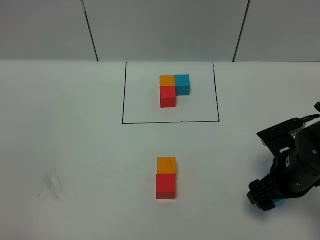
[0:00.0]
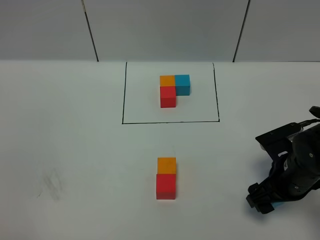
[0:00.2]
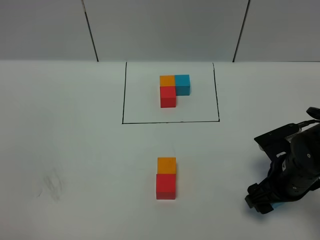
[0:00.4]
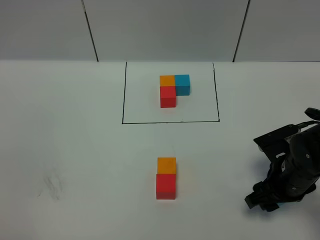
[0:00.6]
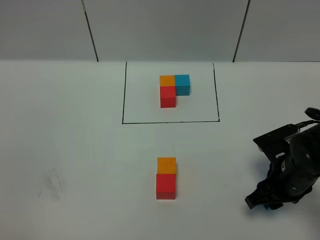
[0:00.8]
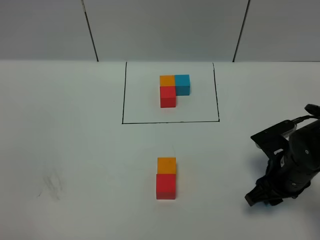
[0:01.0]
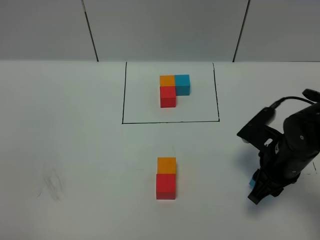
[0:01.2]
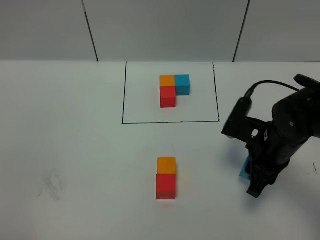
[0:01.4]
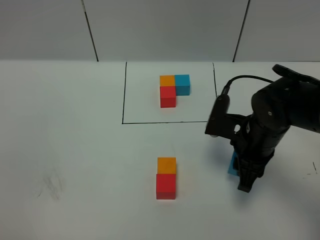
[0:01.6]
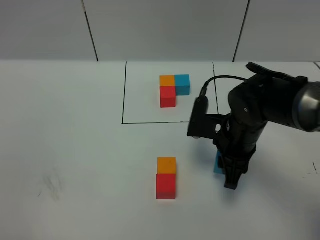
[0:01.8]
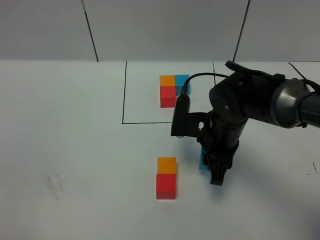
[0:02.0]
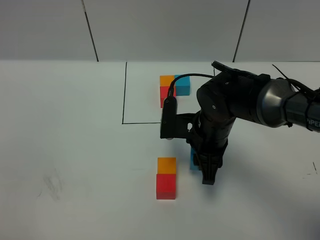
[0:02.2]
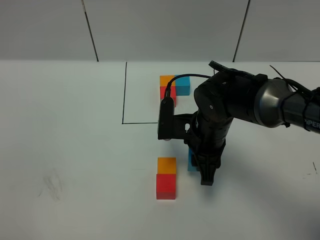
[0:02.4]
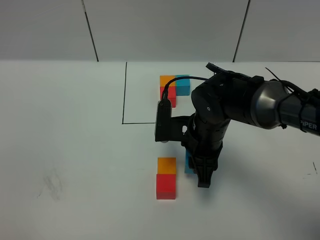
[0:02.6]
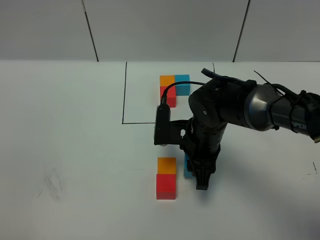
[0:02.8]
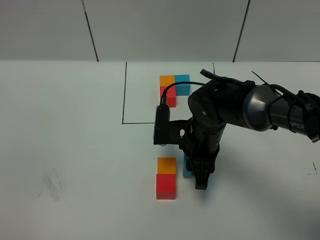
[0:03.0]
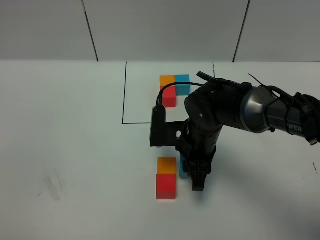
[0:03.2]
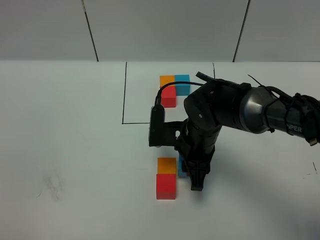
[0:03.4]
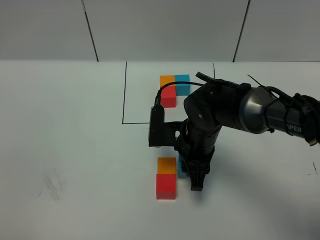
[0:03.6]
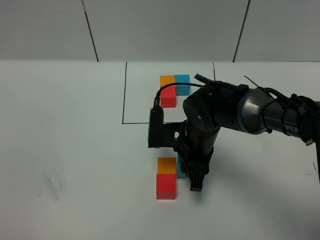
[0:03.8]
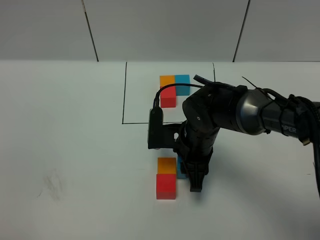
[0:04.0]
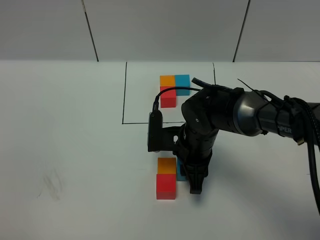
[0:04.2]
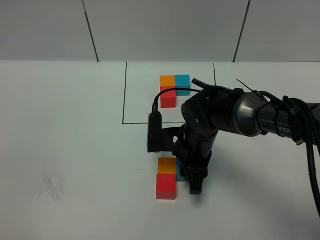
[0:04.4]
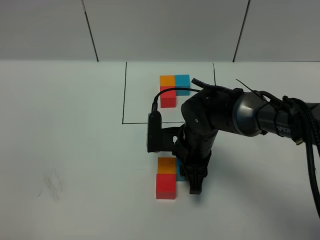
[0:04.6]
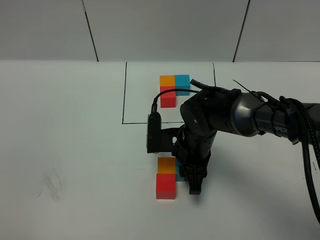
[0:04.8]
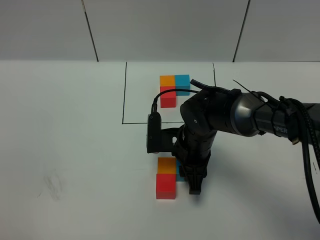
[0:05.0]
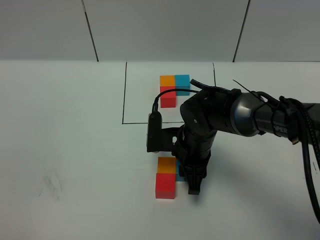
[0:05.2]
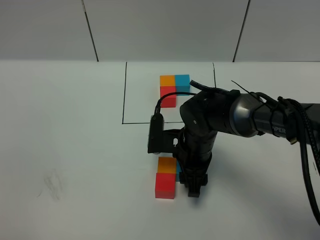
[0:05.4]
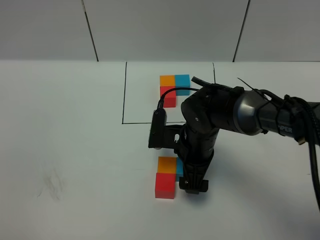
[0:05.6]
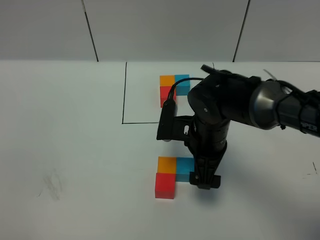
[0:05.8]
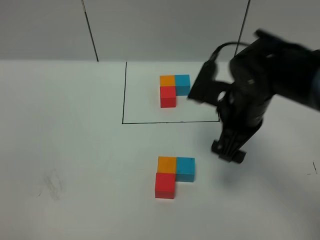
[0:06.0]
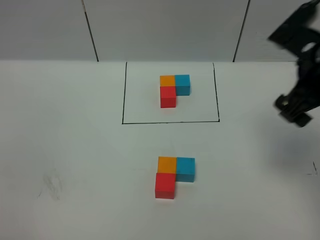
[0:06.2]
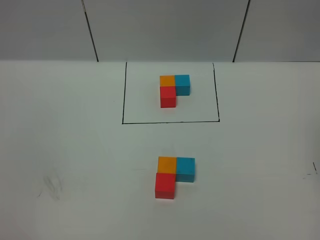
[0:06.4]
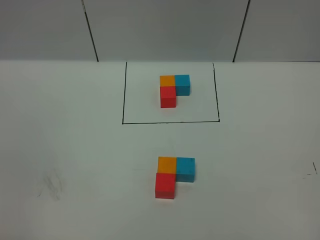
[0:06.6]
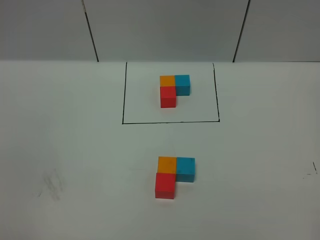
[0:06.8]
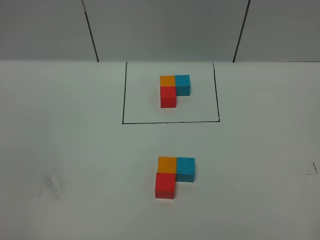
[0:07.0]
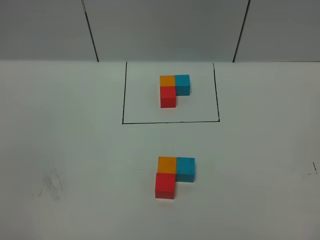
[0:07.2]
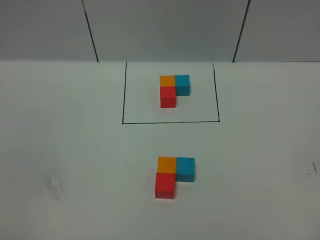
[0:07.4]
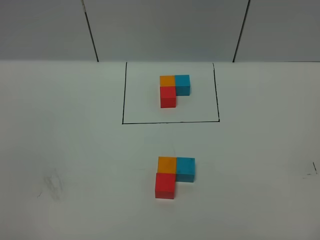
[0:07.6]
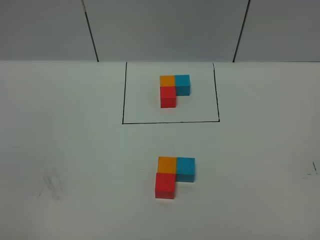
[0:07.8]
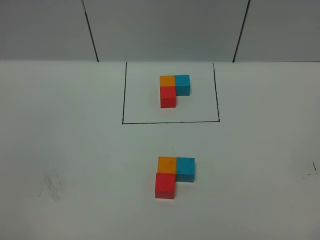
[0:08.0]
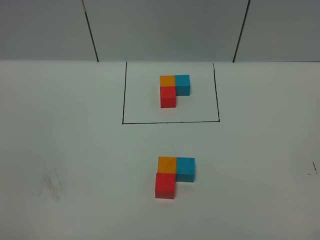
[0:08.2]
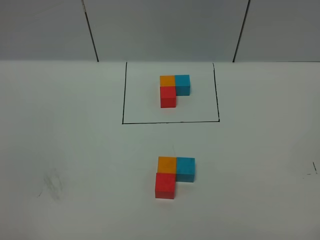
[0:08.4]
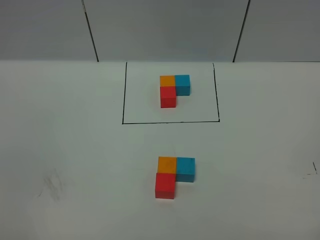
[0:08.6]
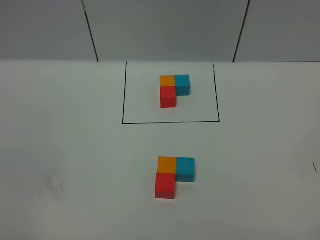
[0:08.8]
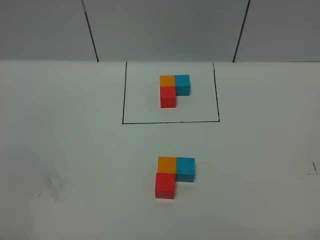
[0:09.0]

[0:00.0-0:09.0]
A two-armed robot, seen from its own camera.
Task of the whole recording: According to the building block template in front, assemble the scattered blocks together.
Step, 0.0 to 5.8 s: Put the blue cube on the right of the orange cube.
0.0 to 1.6 s: The right gripper is displaced to the left and forward by about 10 cm, and closes.
1.6 to 3.0 s: The right gripper is displaced to the left by approximately 10 cm.
3.0 to 4.4 s: The grippers stay close to where they were, moving slightly.
4.4 to 6.0 s: The right gripper shifts roughly 15 cm upward and to the right, and opens.
6.0 to 7.6 s: The right gripper shifts about 35 cm backward and to the right.

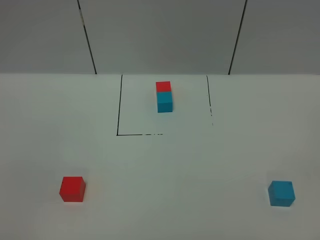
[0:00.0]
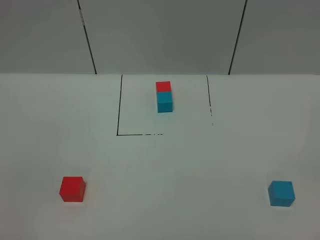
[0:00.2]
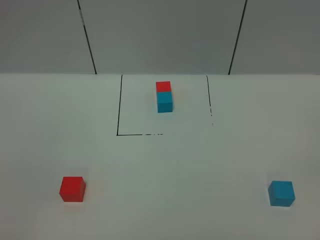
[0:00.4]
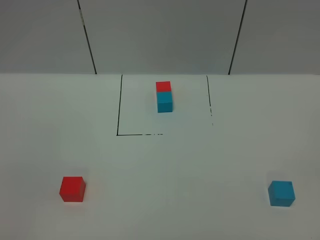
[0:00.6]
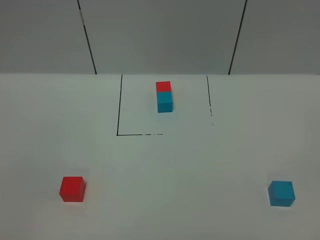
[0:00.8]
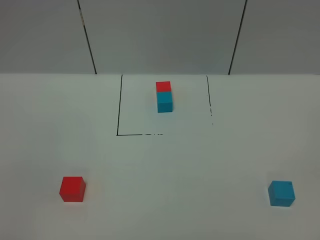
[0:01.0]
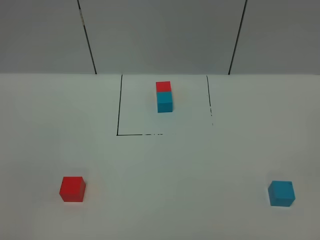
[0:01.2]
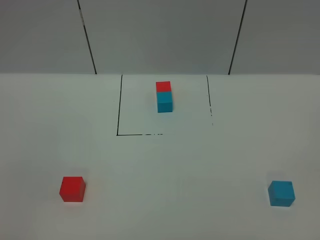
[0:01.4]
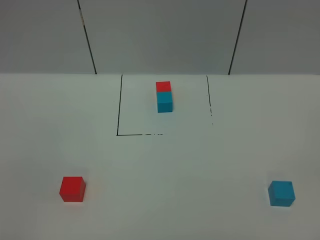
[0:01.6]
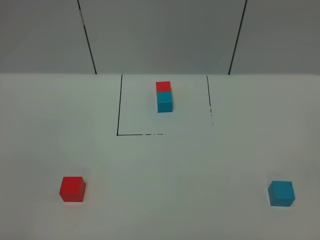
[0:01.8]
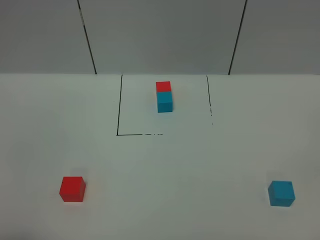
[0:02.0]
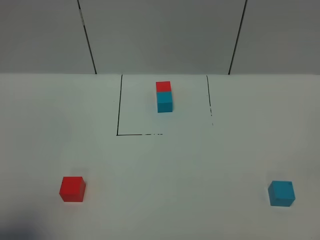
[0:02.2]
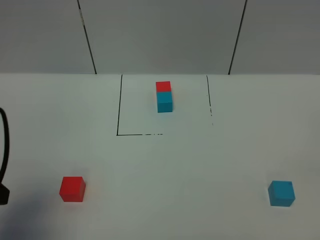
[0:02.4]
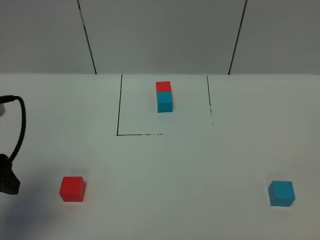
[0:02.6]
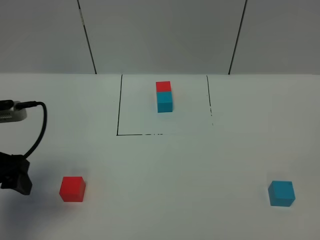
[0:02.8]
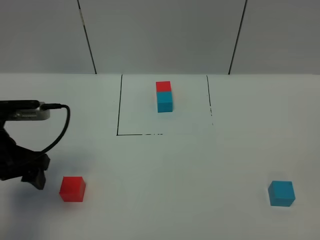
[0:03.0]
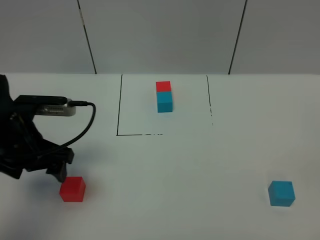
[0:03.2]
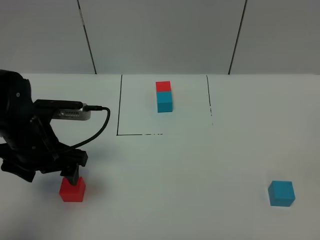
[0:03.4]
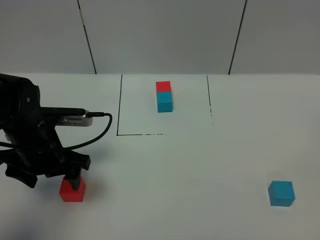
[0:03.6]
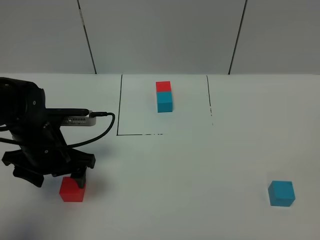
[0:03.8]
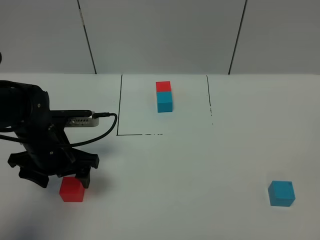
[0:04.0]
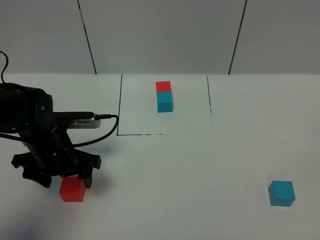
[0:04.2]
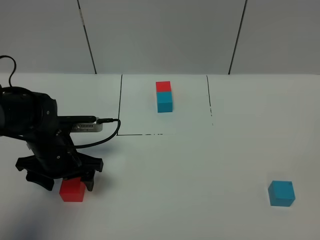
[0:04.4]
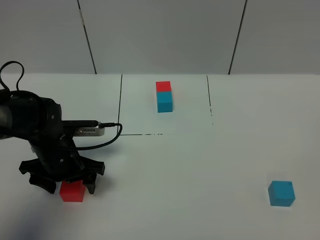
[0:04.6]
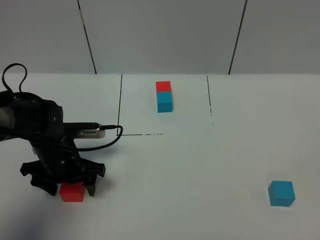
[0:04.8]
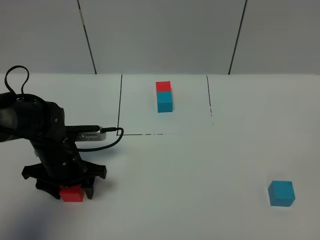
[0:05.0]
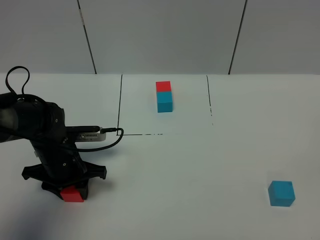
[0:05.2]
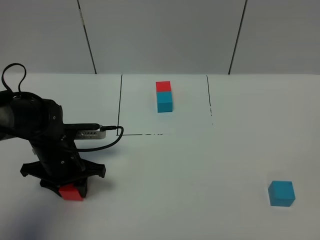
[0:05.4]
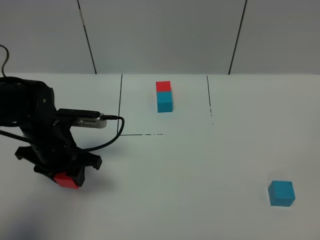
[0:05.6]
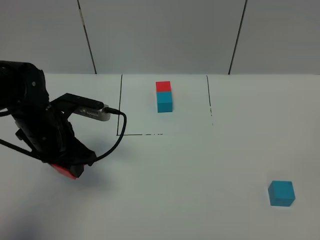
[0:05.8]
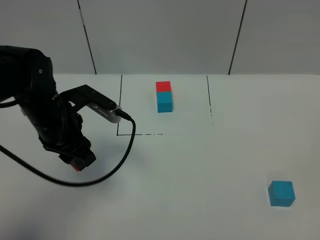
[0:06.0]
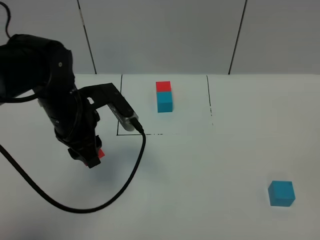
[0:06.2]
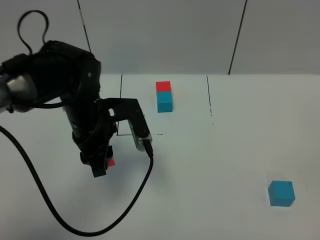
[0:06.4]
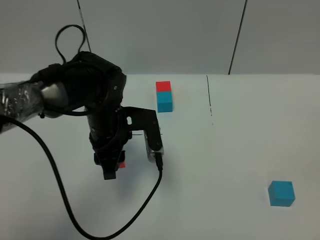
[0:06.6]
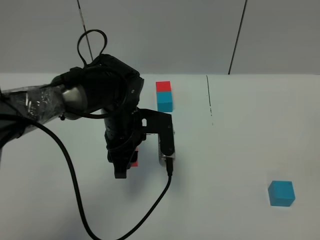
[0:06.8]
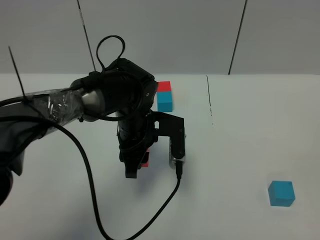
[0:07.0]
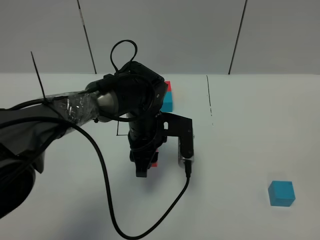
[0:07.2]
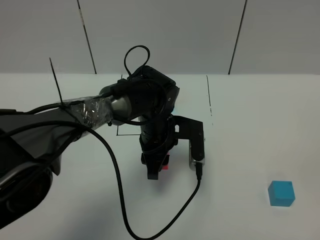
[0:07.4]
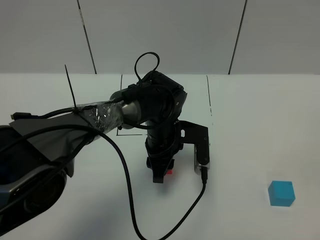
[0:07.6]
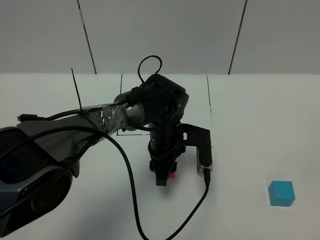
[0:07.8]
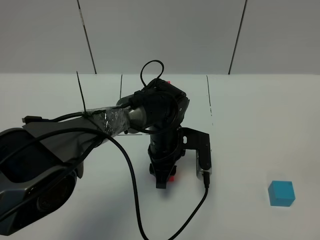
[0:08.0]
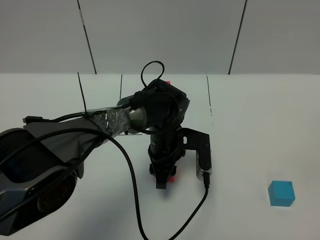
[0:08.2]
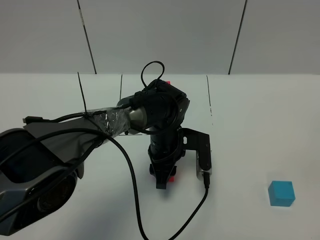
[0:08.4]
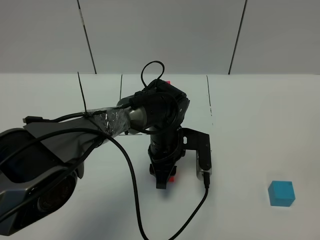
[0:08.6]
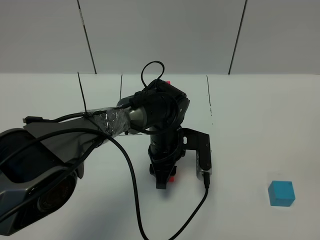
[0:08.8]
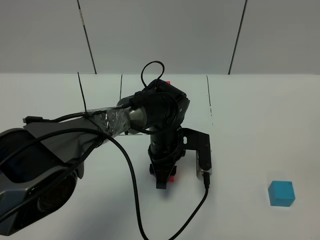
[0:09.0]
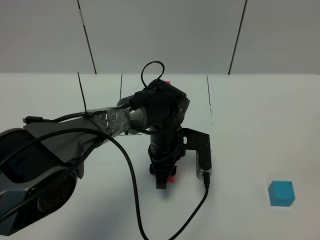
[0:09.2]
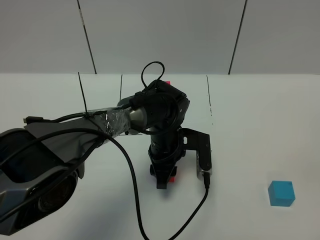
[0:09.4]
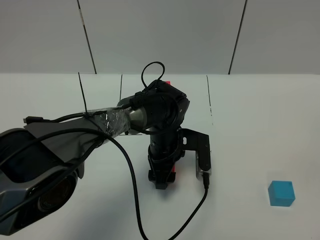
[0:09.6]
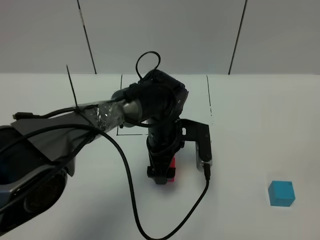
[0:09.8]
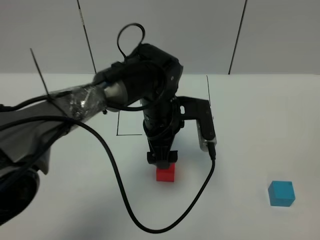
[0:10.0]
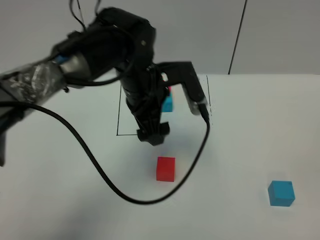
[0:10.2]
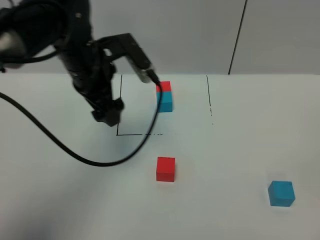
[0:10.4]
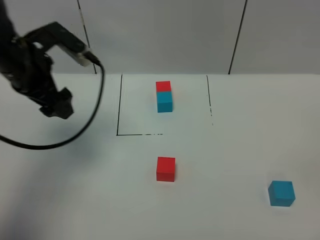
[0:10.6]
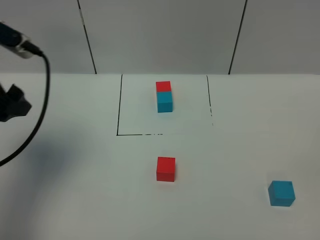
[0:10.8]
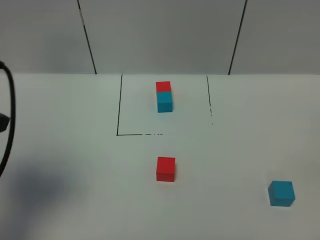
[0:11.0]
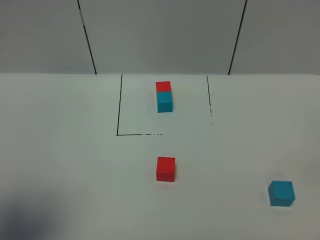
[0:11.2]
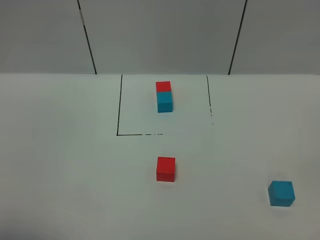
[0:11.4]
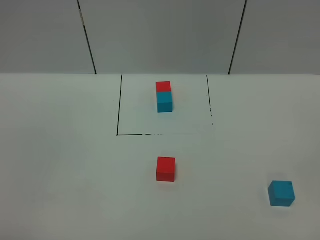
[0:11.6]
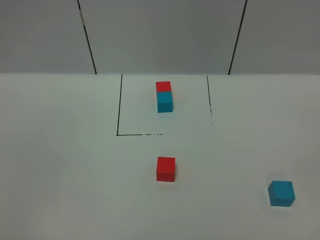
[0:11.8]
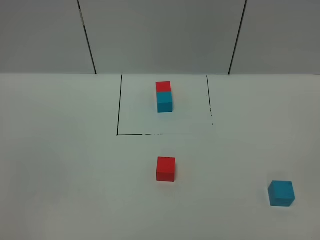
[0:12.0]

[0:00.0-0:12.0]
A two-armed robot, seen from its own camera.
Task of the whole recording: According to the building block template in front, assemble the scattered blocks together.
Step, 2.4 to 9.6 s: Put the red cube in the center of the table.
0.0 to 1.6 s: The two grippers keep their place.
1.6 to 3.0 s: The left gripper shifts approximately 25 cm forward.
3.0 to 4.4 s: The left gripper heads downward, to the right and forward, covering roughly 10 cm.
4.4 to 6.0 s: The left gripper travels upward by about 10 cm, and closes.
6.0 to 7.6 s: The left gripper moves to the right and downward, about 20 cm.
7.6 to 9.0 s: The grippers move only a little.
9.0 to 10.4 s: The left gripper moves upward and to the left, roughly 25 cm, and opens.
10.4 to 12.0 s: The left gripper heads backward, covering some 40 cm.

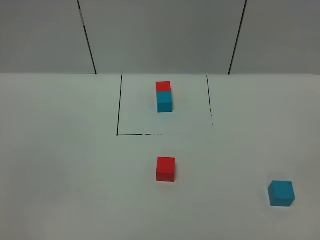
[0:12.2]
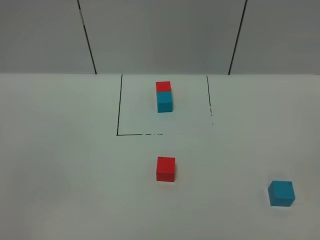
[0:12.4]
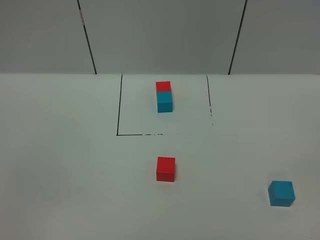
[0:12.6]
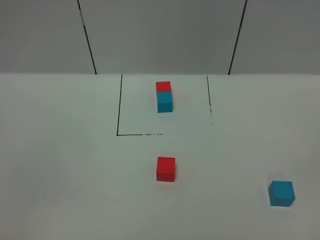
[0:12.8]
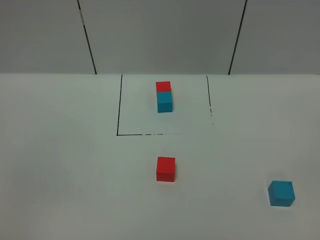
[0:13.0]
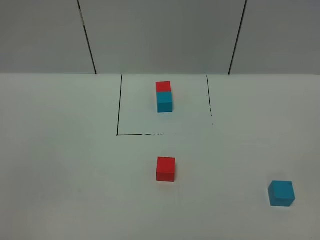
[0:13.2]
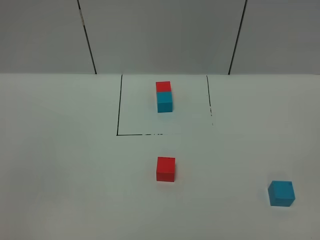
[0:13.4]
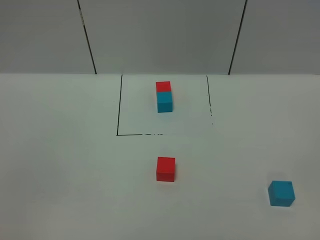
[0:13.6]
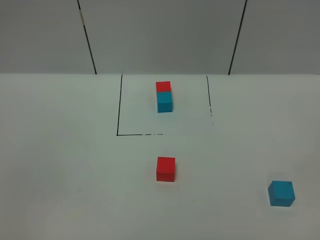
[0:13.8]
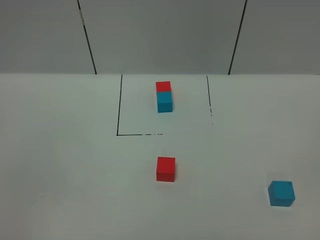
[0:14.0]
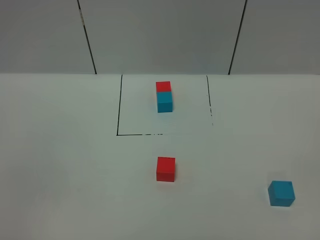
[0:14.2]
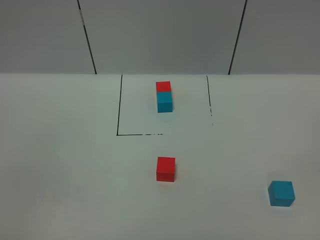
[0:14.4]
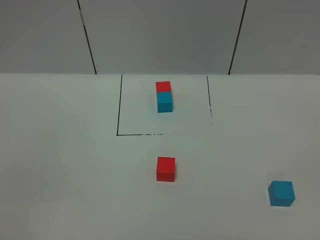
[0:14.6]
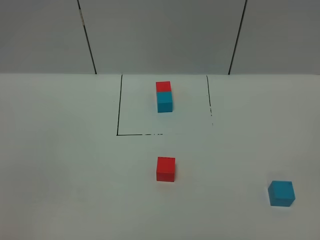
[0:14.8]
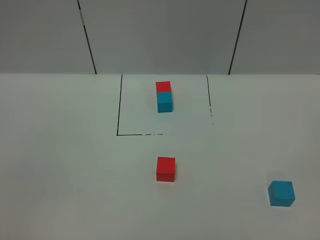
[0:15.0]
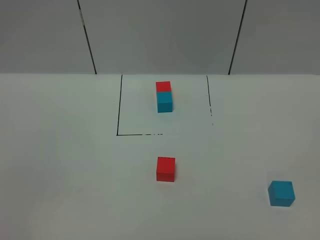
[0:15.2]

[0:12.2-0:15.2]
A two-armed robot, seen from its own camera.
Task of the whole recording: According to the building block template in front, assemble the scattered blocks together.
13.8 to 15.2 s: Both grippers stay put.
